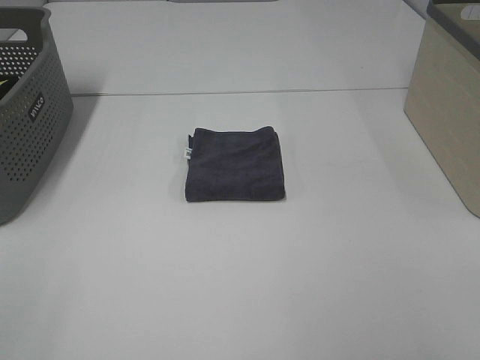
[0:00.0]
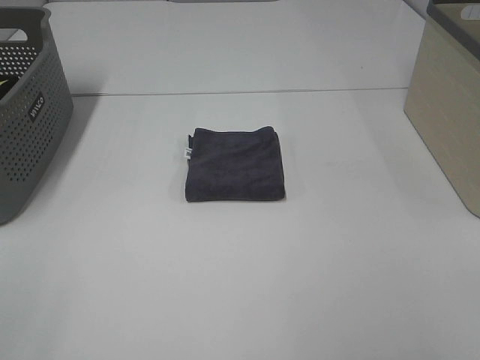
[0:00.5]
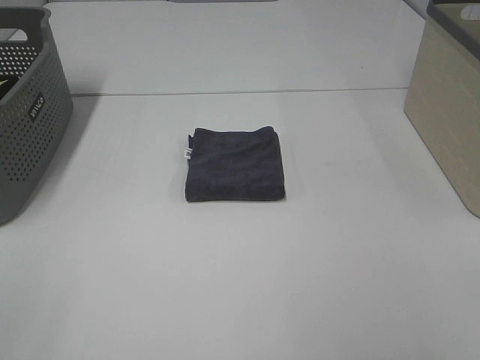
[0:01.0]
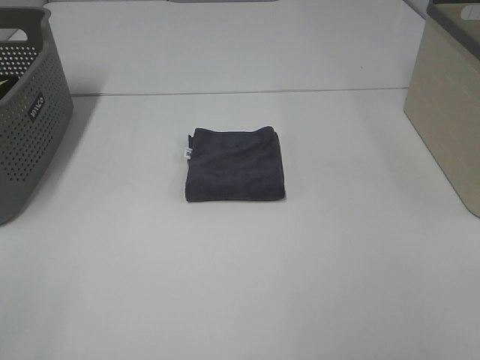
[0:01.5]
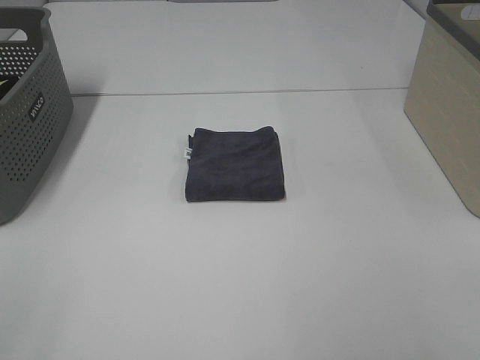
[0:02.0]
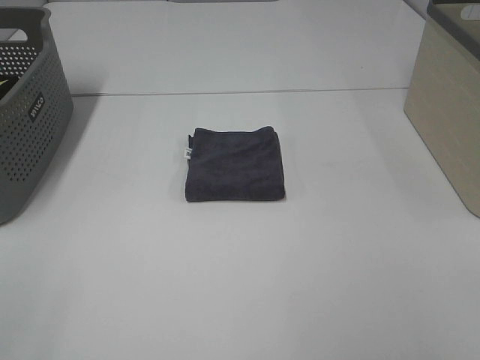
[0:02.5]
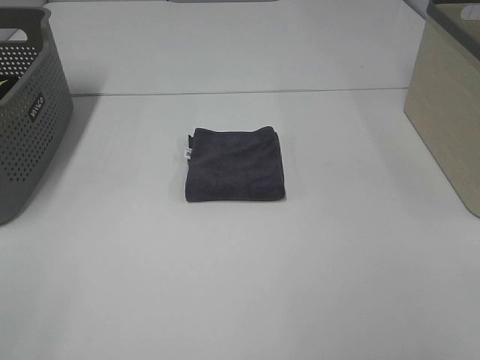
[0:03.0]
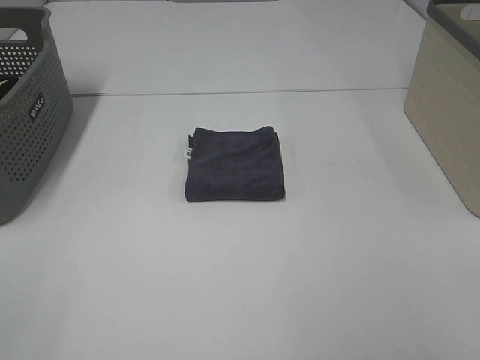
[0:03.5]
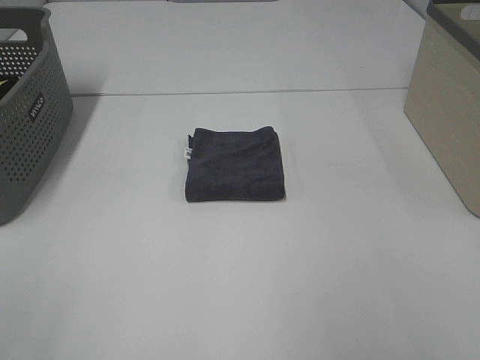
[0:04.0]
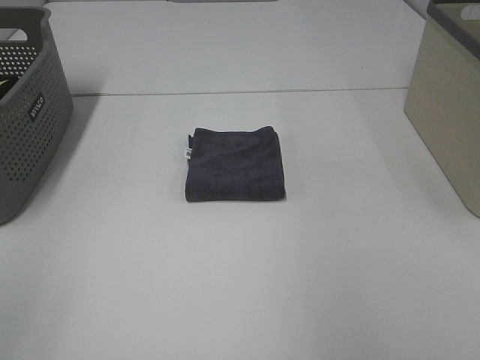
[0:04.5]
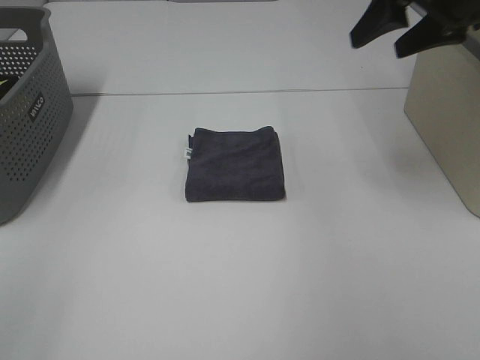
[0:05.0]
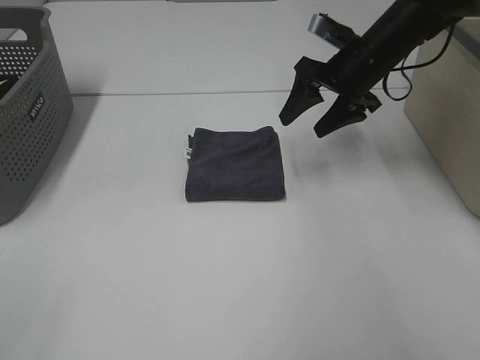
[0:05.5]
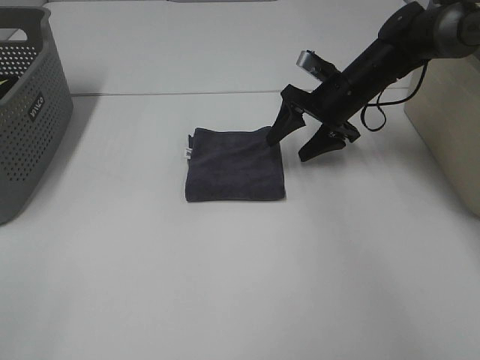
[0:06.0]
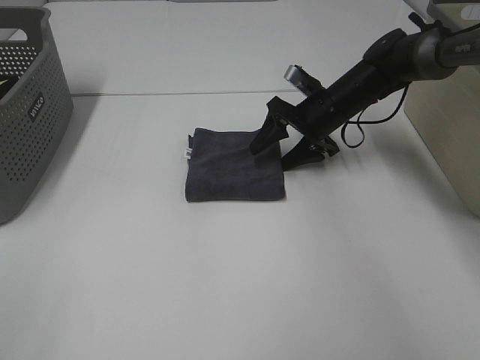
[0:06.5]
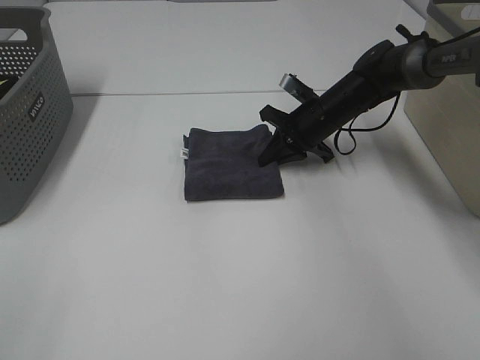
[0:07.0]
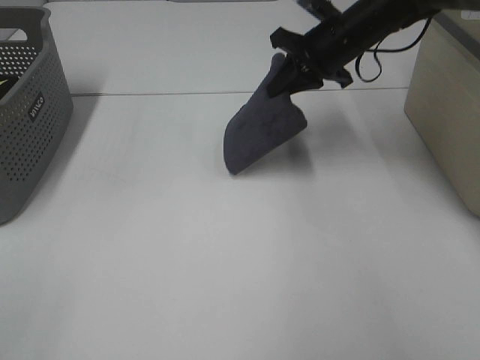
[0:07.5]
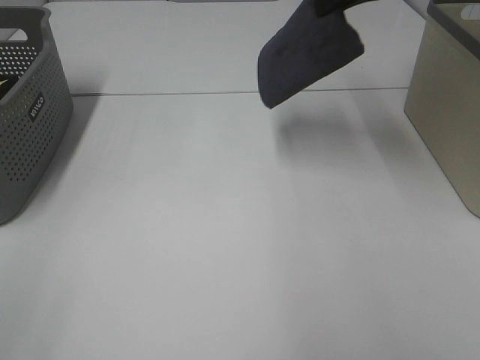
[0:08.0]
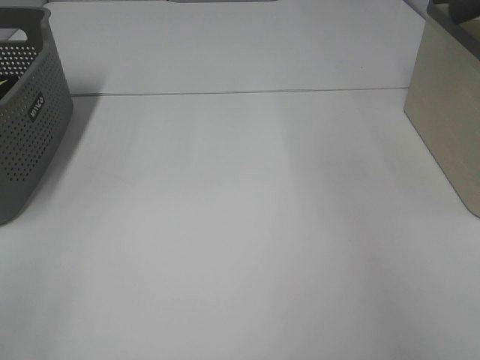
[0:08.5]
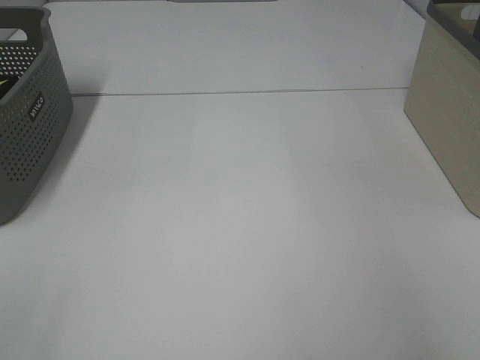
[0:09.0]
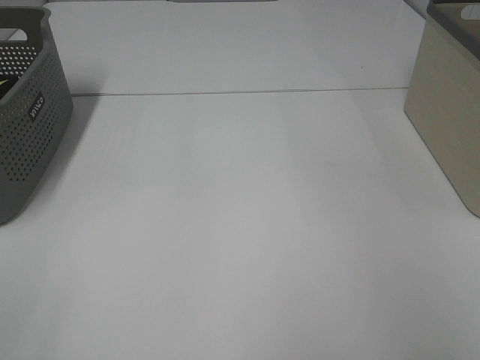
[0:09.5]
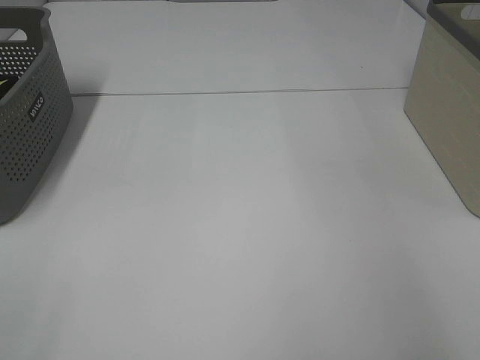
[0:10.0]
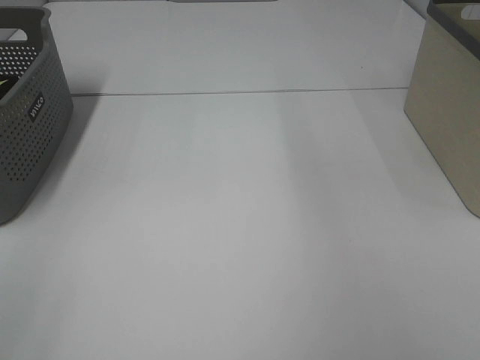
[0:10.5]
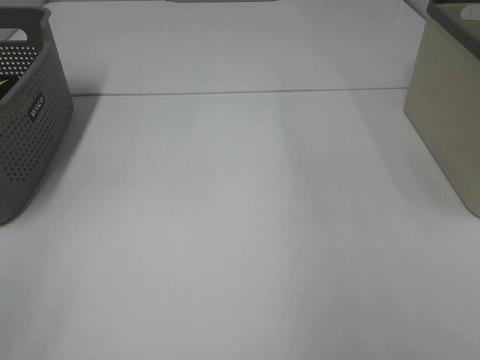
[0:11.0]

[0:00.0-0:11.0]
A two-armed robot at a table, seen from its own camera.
Step, 0:00.0 to 0:06.5: Right hand: grab the folded grey towel.
Step, 0:07.0 to 0:09.5: Right hand: place the grey towel in right basket.
0:00.0 to 0:03.5: Neither gripper changes place.
0:03.5 to 0:05.5: The right gripper travels forward by approximately 40 cm.
0:05.5 to 0:07.5: The right gripper travels downward and back again, approximately 10 cm each way, and closes.
0:07.5 to 0:09.0: The right gripper goes roughly 35 cm to the right and upward.

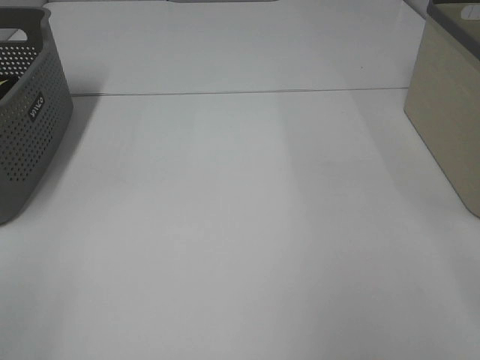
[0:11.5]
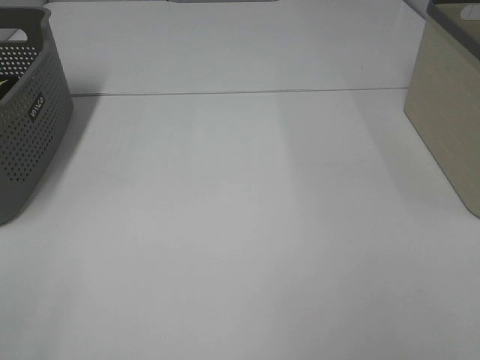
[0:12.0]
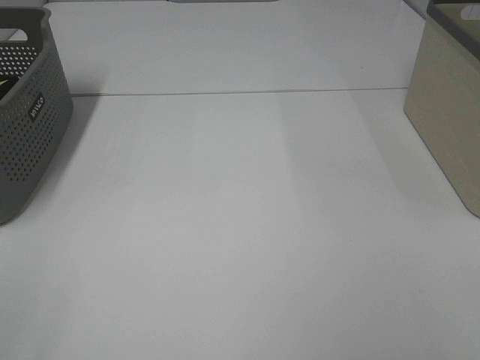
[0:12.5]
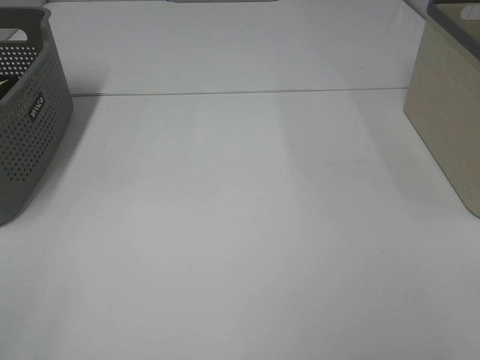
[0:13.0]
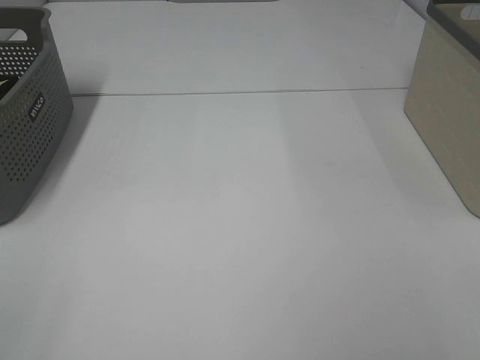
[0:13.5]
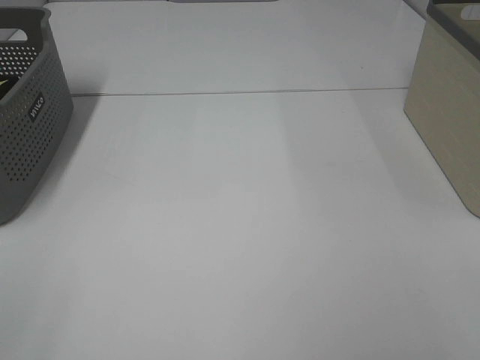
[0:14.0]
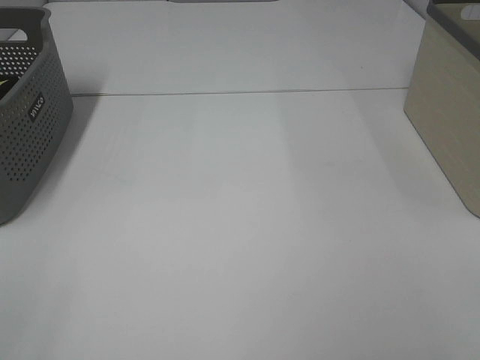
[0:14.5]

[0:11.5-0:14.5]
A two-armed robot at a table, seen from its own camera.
0:13.0 to 0:14.5: Both grippers stay about where they are.

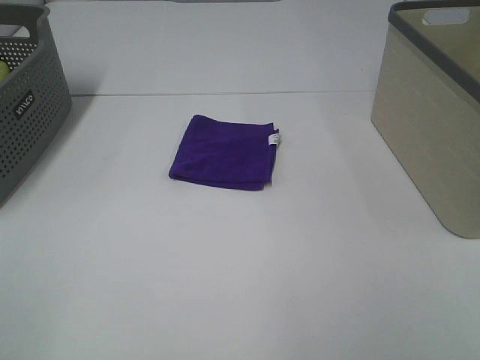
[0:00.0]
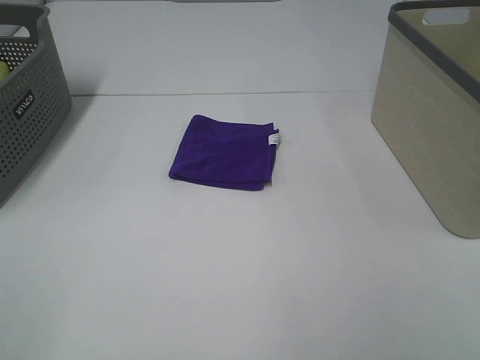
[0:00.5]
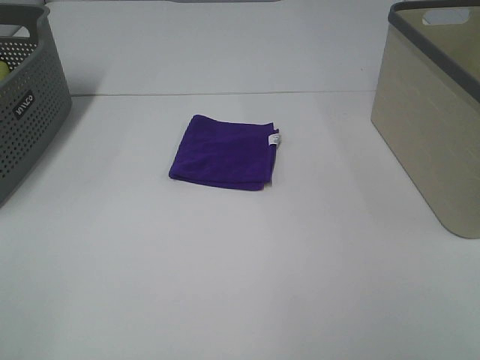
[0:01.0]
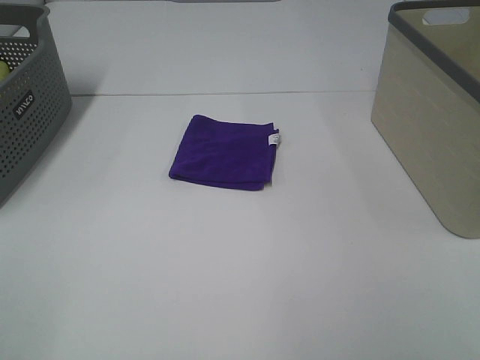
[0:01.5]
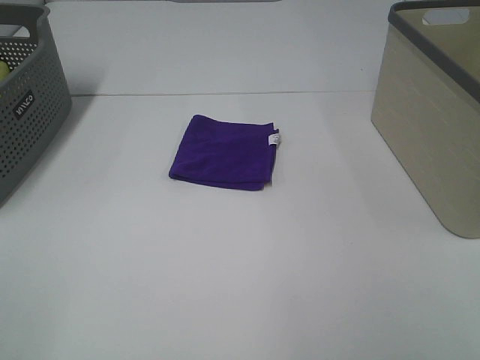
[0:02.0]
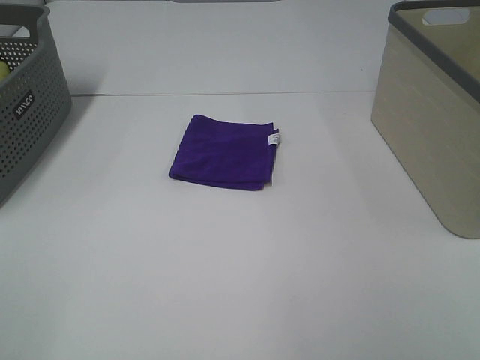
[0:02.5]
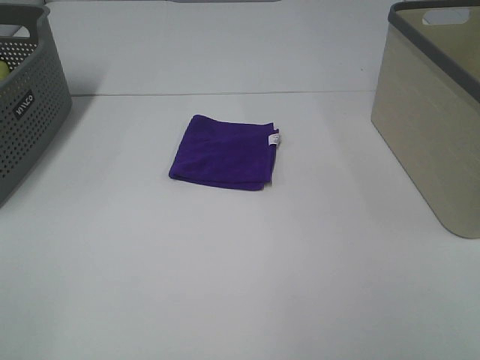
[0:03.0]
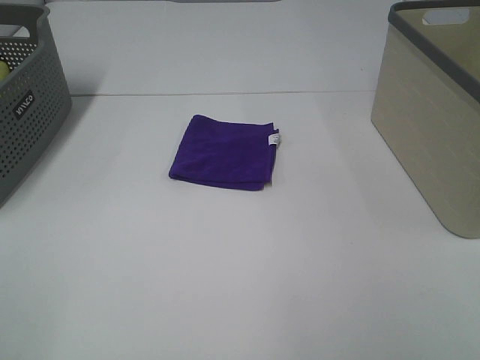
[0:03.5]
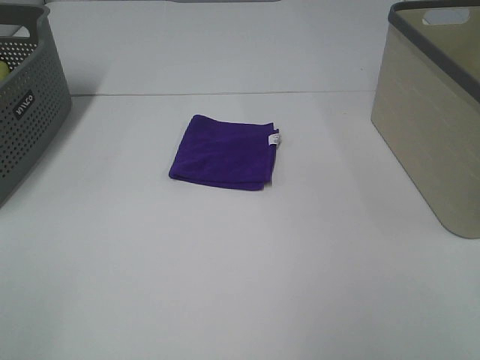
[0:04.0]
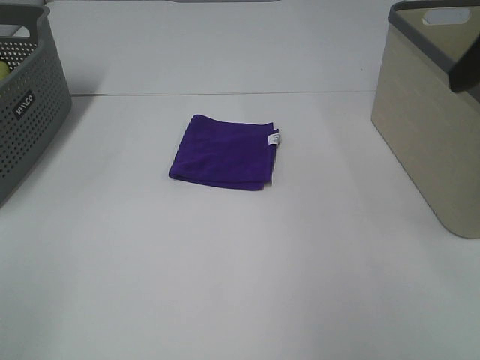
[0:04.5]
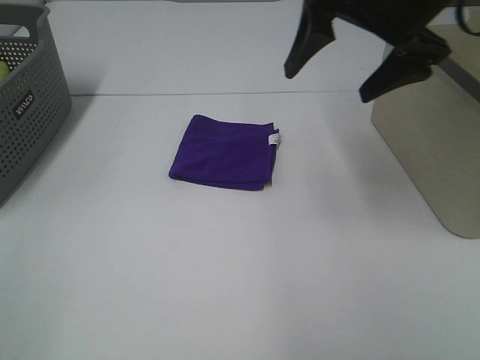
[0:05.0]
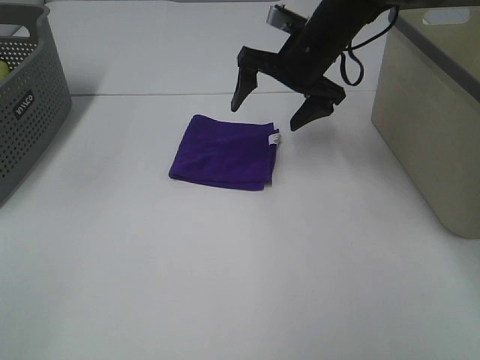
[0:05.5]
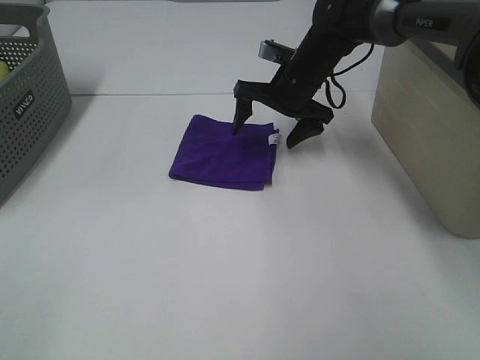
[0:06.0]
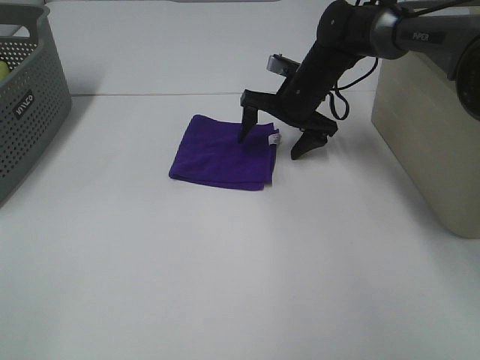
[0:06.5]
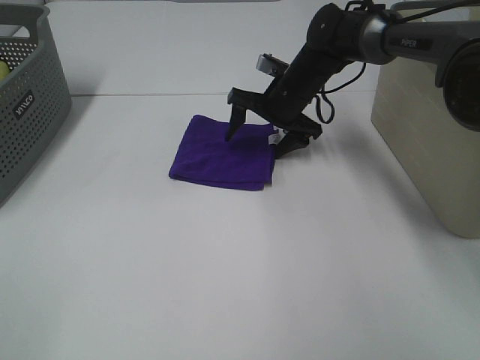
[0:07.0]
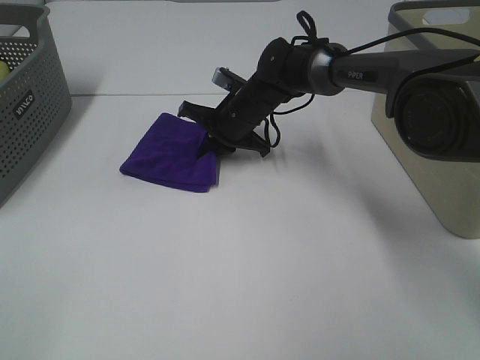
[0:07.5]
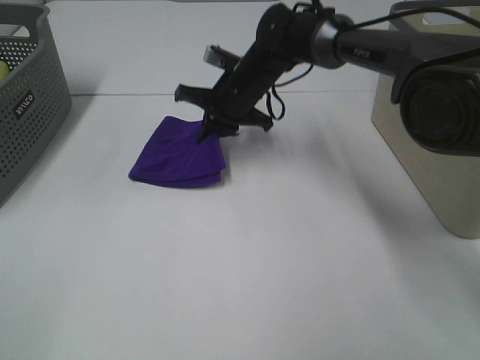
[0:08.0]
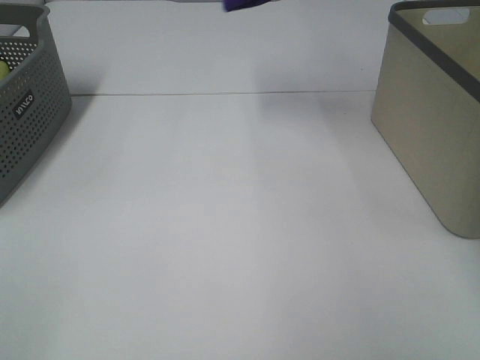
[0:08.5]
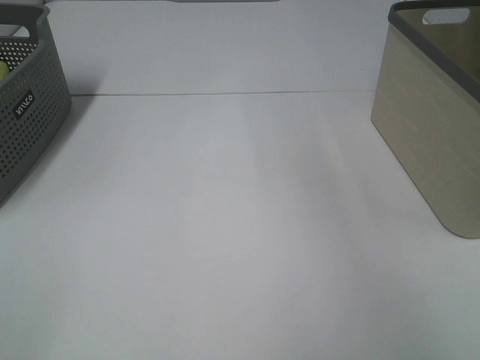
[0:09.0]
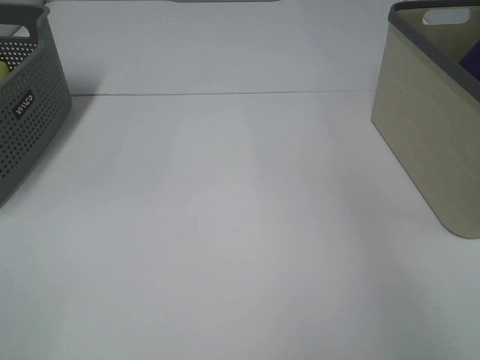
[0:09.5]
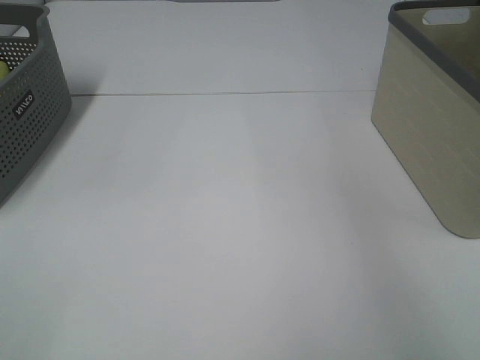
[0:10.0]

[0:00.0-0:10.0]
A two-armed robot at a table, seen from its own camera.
Step, 0:00.0 to 0:07.5: Right hand: grab the folded purple towel.
Step, 0:08.0 to 0:09.5: Right hand: place the purple towel in right basket.
0:00.0 to 0:02.0: Both grippers stay about where they are.
0:04.0 to 0:06.0: The right gripper shifts approximately 50 cm forward, downward and to the left.
0:06.0 to 0:08.0: The right gripper is displaced to the left by some 10 cm, and closes up.
0:08.0 to 0:10.0: The right gripper is displaced to the right and upward by some 40 cm, and opens.

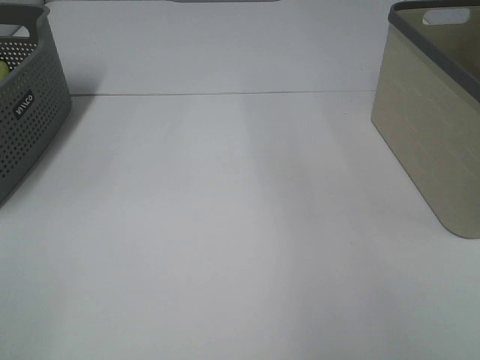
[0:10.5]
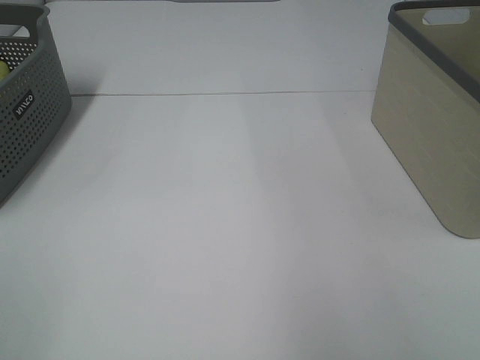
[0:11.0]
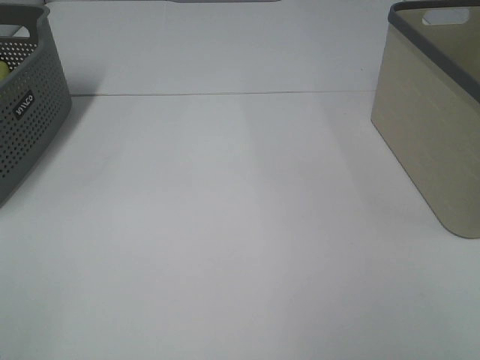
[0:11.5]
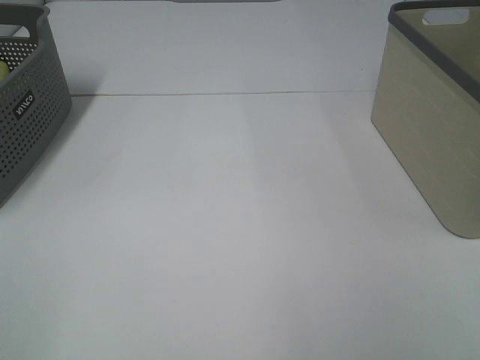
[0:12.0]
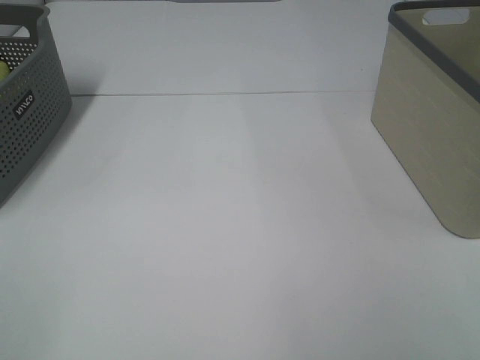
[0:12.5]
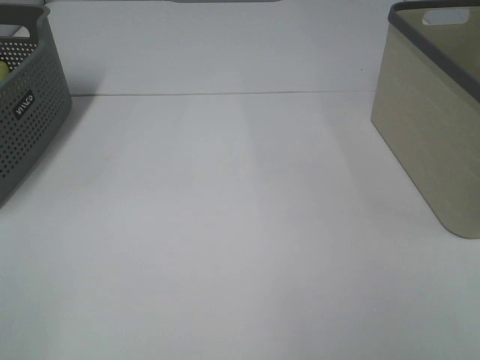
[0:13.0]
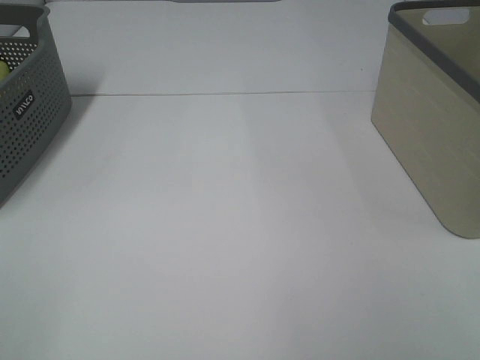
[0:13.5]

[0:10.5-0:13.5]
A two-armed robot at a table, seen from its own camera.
0:12.0 to 0:13.5: Both grippers stay about where they are.
